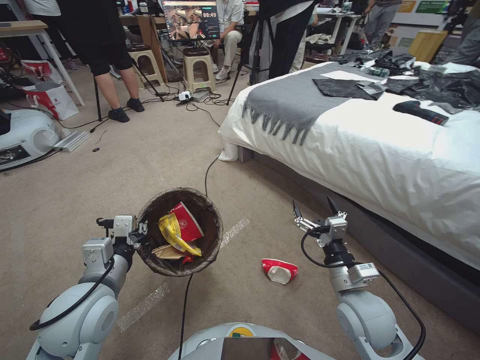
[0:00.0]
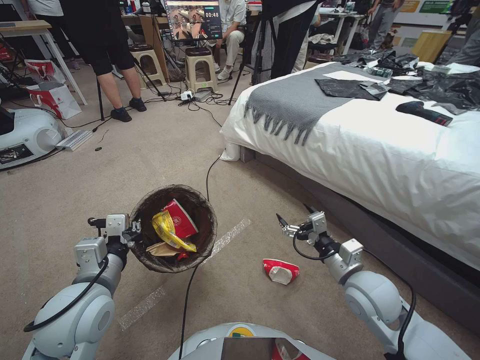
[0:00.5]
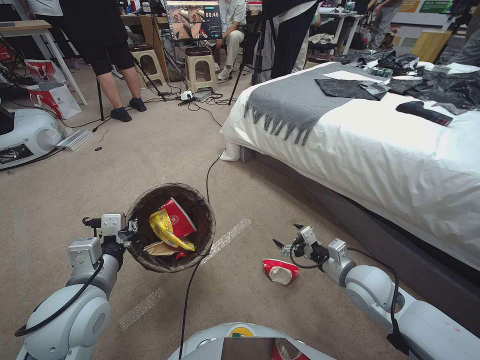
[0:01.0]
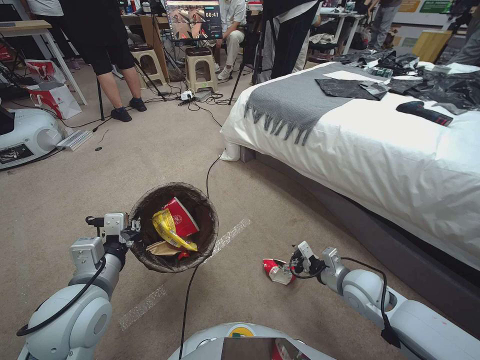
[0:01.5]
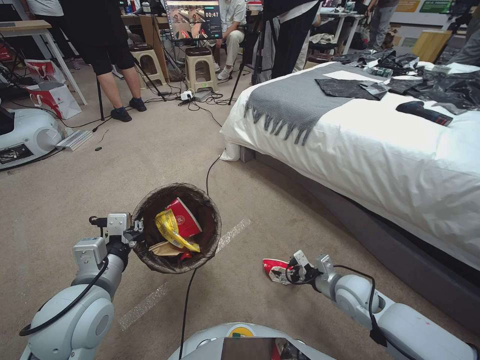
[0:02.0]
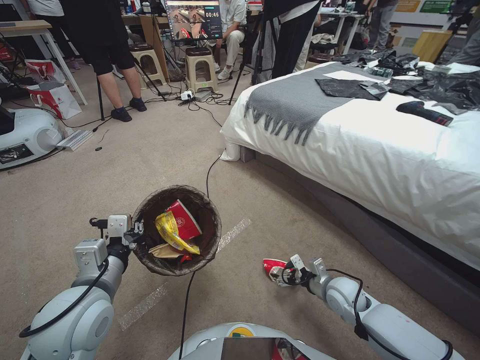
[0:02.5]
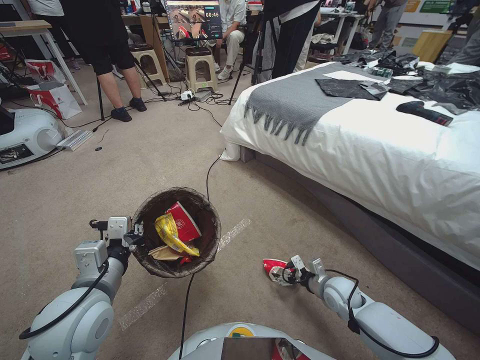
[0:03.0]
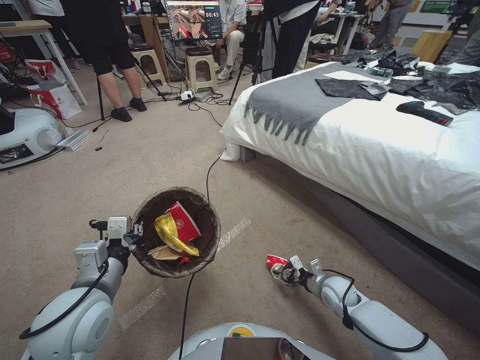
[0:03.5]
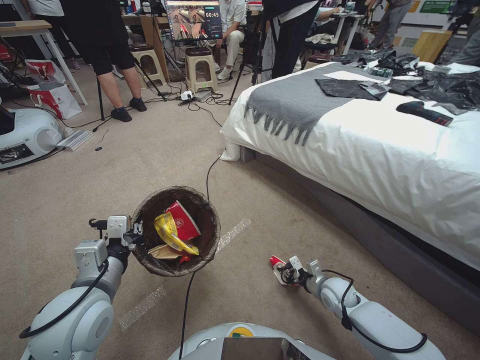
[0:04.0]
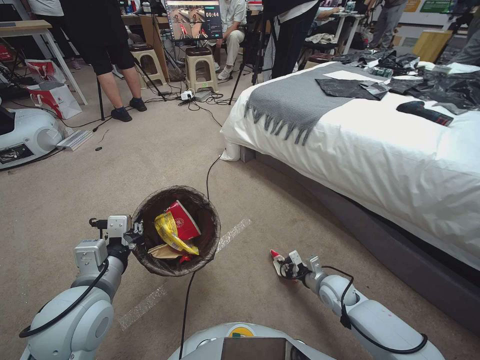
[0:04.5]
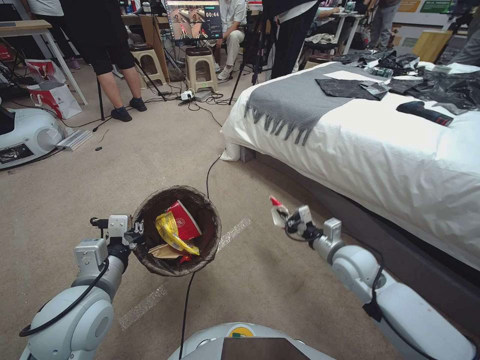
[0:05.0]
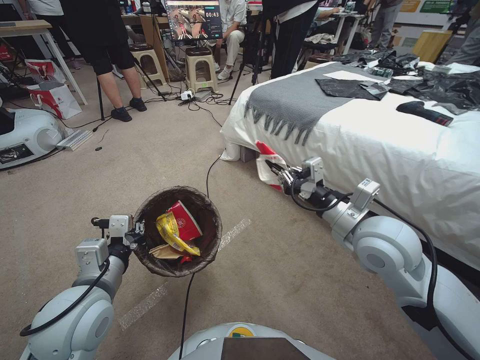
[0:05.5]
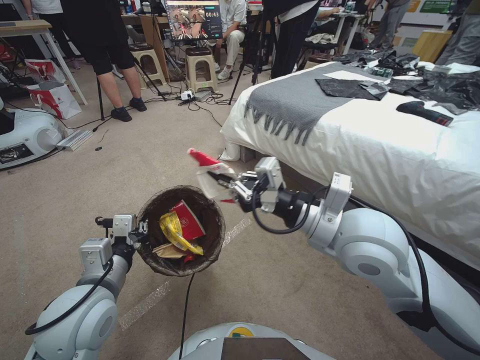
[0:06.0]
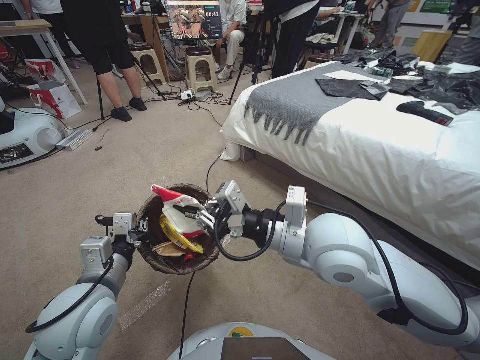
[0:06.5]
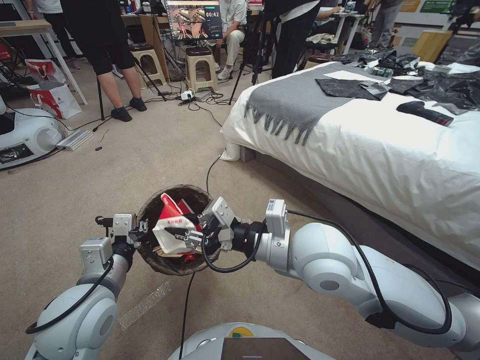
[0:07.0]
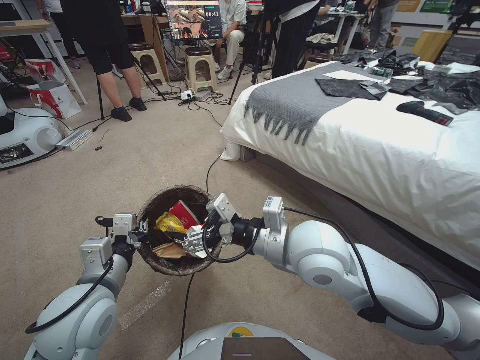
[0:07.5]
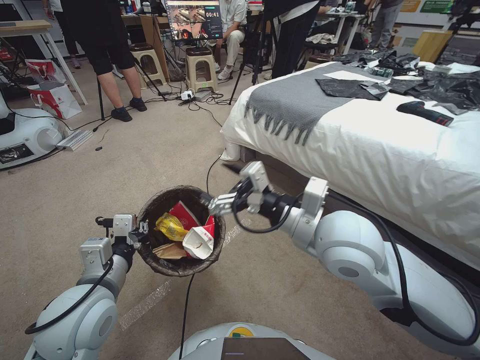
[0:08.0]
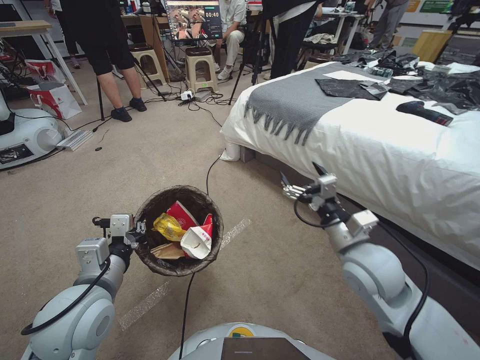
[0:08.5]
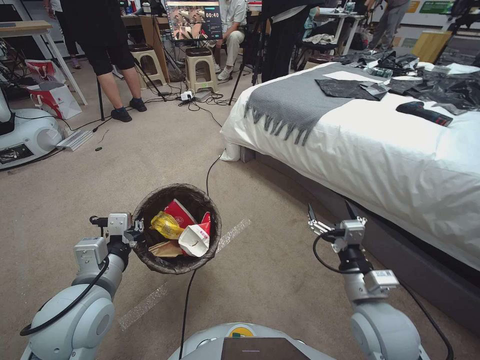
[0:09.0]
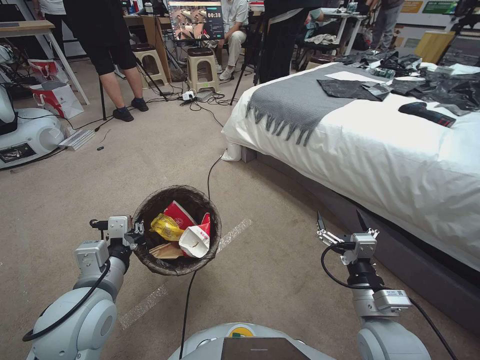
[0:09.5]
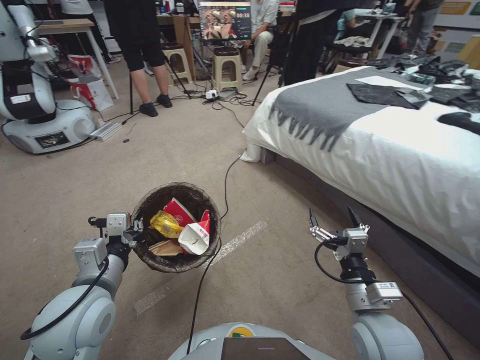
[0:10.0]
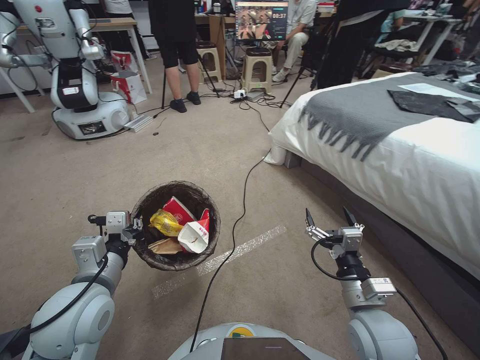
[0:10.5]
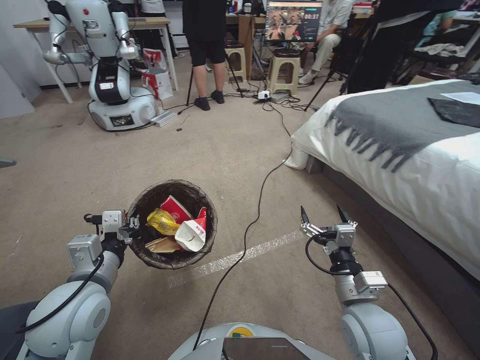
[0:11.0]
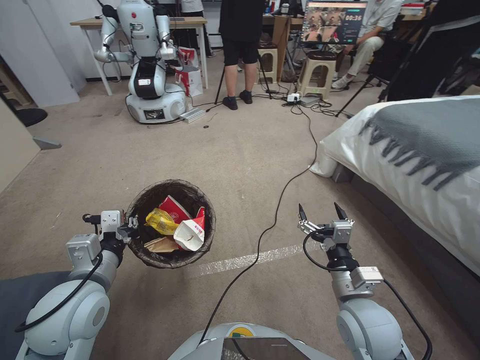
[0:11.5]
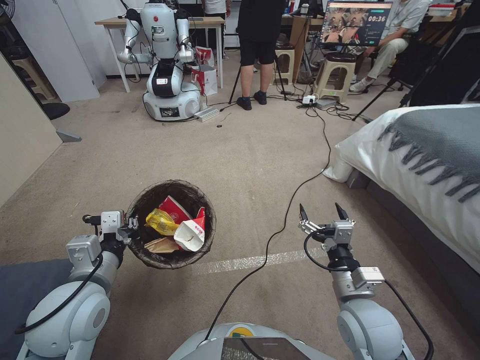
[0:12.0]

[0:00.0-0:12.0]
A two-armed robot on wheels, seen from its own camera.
Task of the whole recording: Pick up the trash bin, then pick up the garbage from the floor and place it into the trash bin.
0:00.0 to 0:02.0: The right gripper goes about 15 cm downward, forward and to the right.
0:02.0 to 0:04.0: The right gripper shifts roughly 10 cm downward, and closes its fingers.
0:04.0 to 0:06.0: The right gripper travels upward by about 40 cm.
0:06.0 to 0:08.0: The right gripper opens.
0:08.0 to 0:10.0: The right gripper shifts approximately 25 cm downward, to the right and backward.

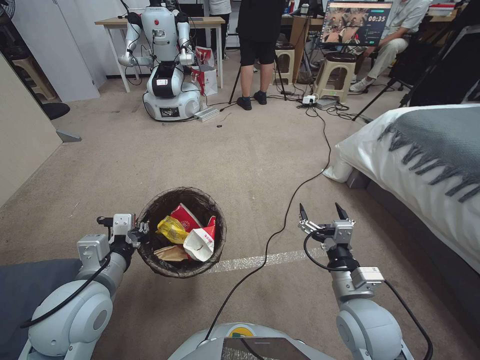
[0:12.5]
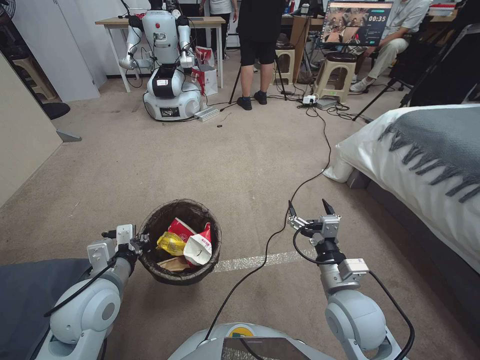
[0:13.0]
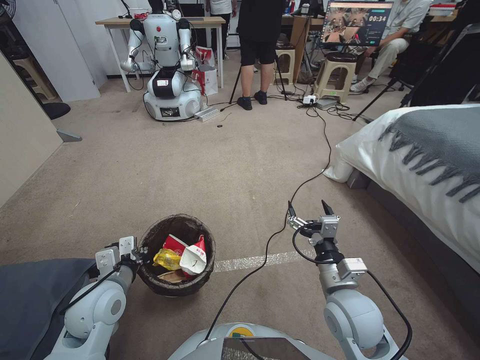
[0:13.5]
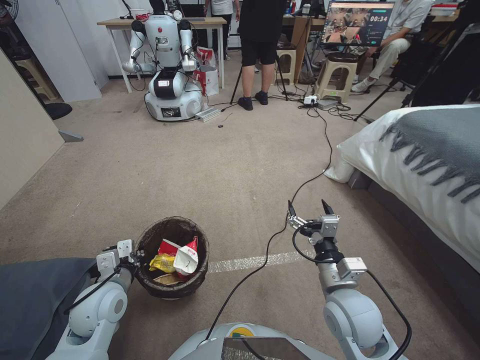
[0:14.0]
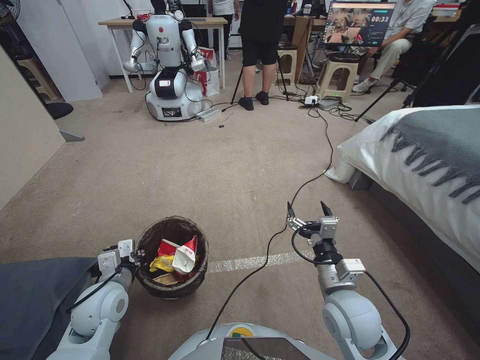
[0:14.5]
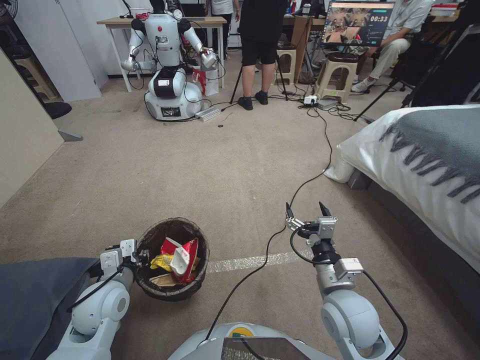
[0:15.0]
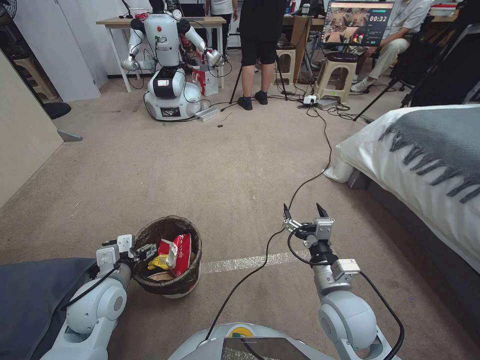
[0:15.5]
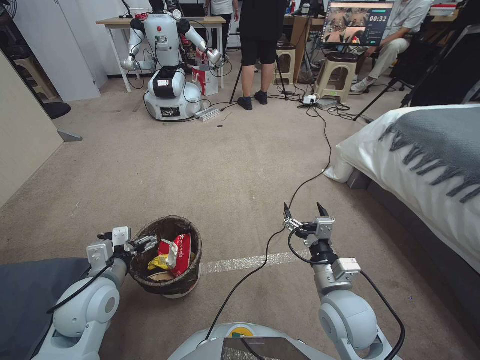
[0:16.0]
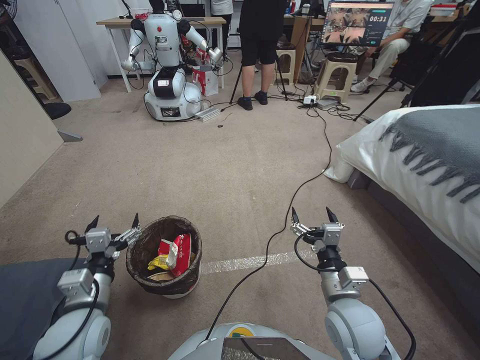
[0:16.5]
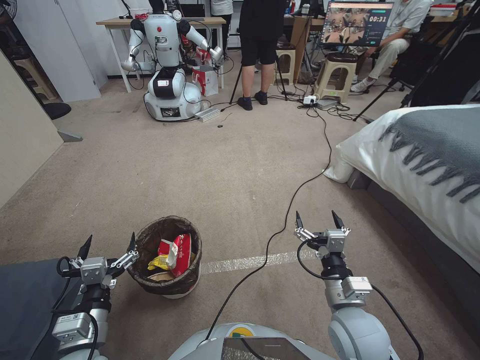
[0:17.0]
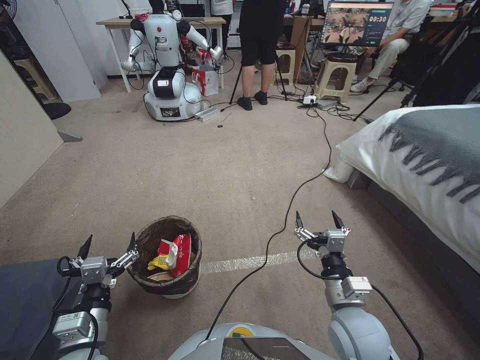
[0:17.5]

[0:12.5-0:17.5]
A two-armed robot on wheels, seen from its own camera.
Task of the whole recording: Pick up the trash bin, then pick up the garbage from the floor and place it into the trash bin.
0:12.5 to 0:15.0: The left gripper travels downward by some 10 cm.
0:15.0 to 0:17.5: The left gripper travels backward by some 10 cm, and opens its fingers.
